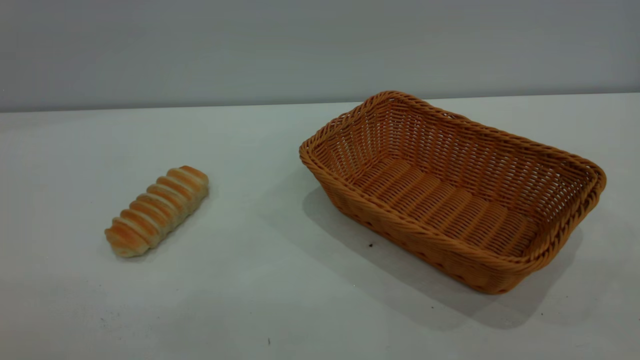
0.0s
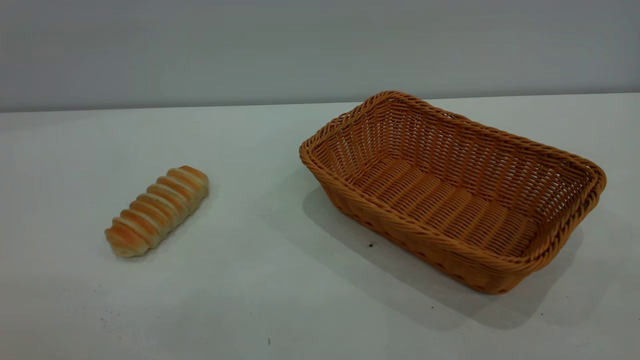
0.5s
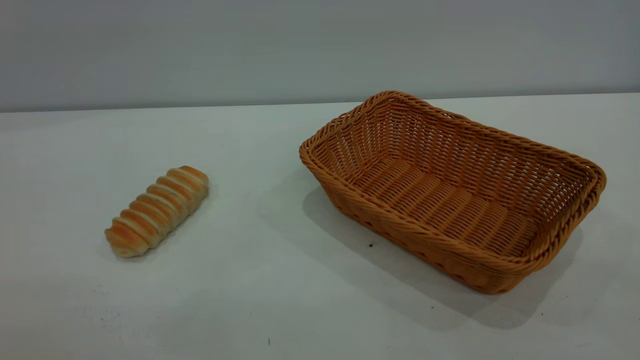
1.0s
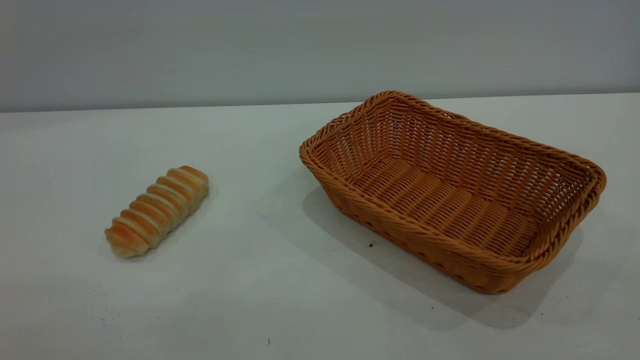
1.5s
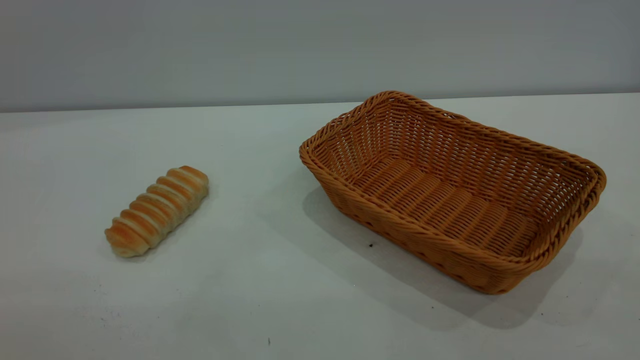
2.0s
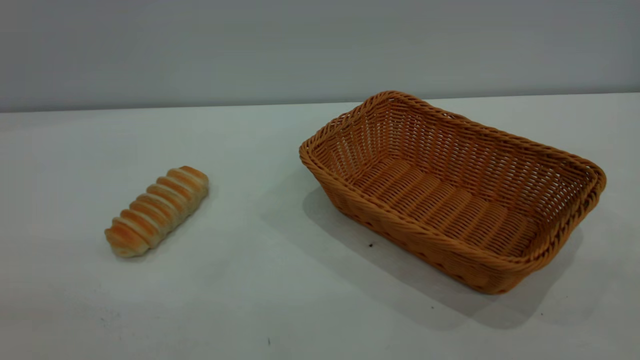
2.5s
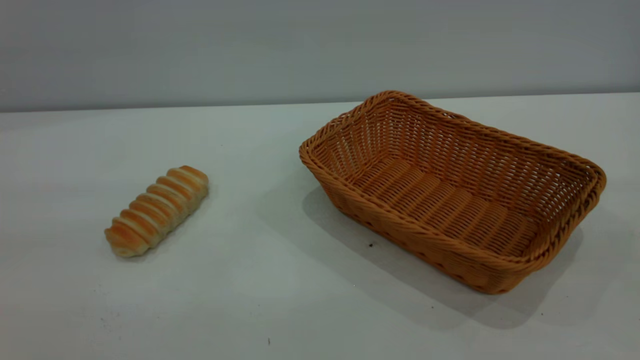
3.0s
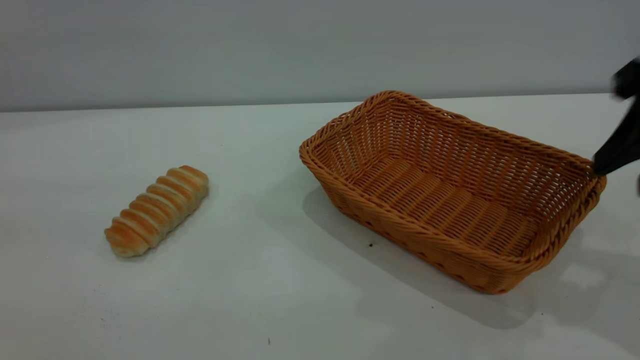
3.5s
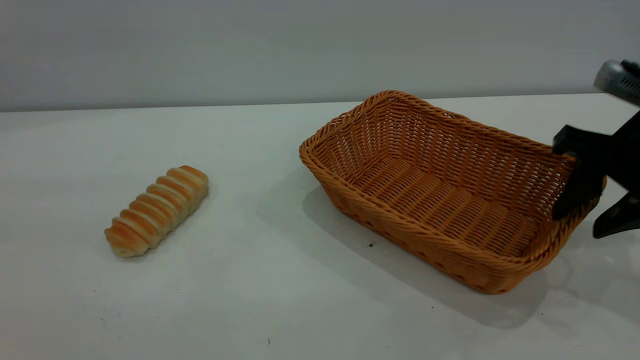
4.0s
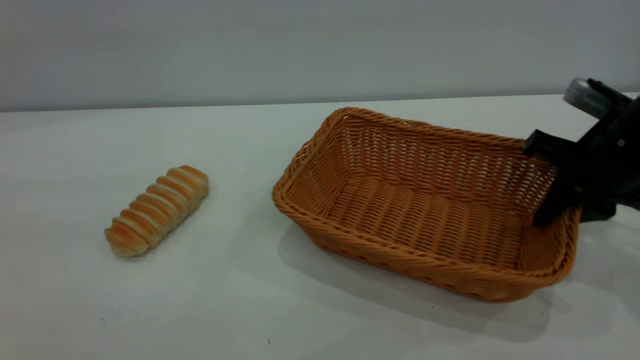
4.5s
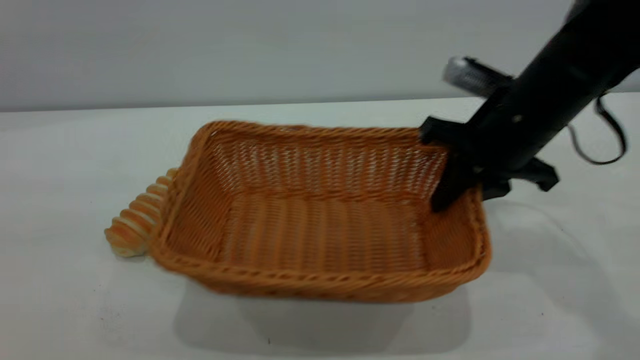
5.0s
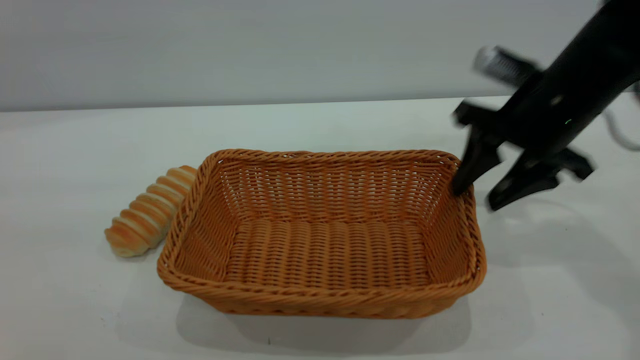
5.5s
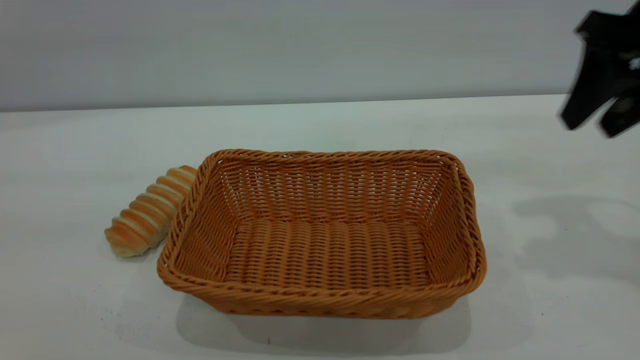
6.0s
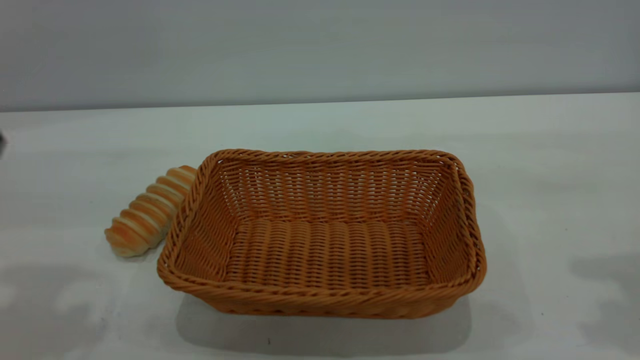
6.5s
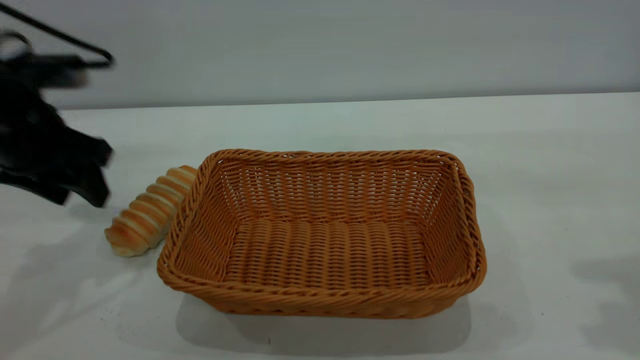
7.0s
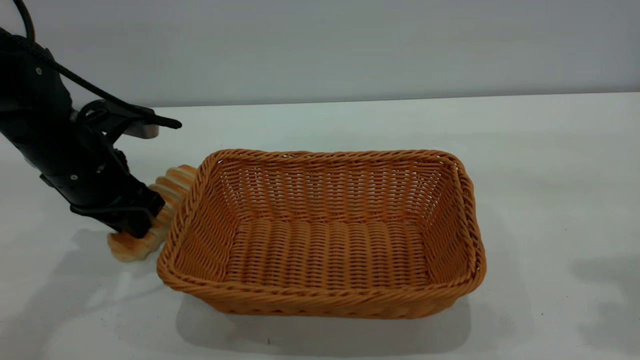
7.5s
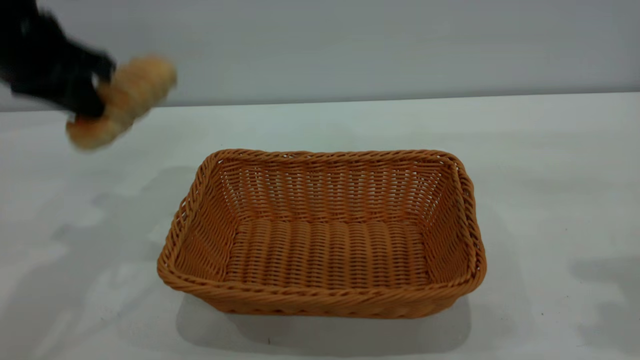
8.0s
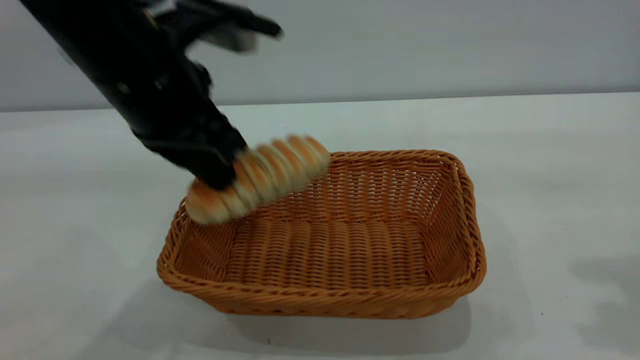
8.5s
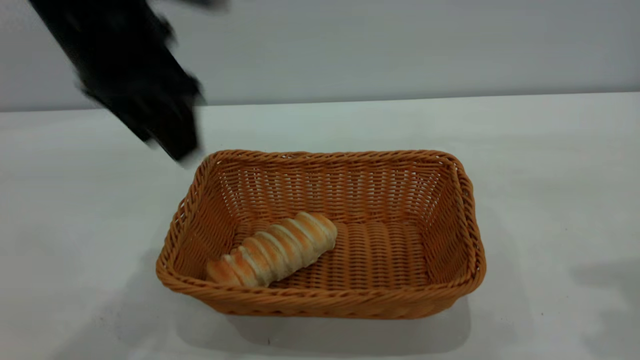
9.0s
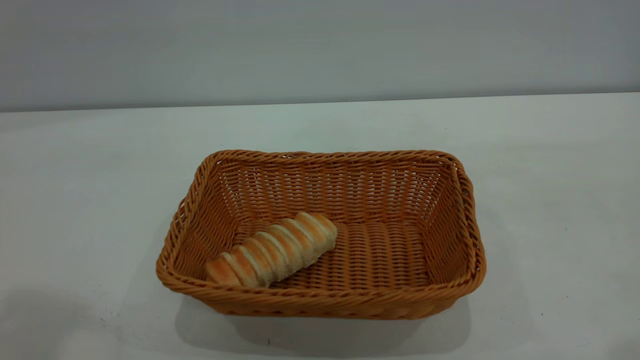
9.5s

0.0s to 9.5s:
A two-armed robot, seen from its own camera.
Task of the whole recording: One hand grasps the yellow basket and places it in the middle of the table, while the other hand picks up the long bread and puts it into the yellow basket.
Step, 0.0s to 5.5s: Move the basket to the center of view.
Step, 8.0s to 9.0s: place the bread into the basket.
2.0s to 4.0s: The right gripper moves forward and downward, approximately 35 cm, and opens its fingers.
4.0s to 5.5s: The right gripper heads to the left and forward, covering roughly 10 cm, and closes and opens again.
5.5s to 7.5s: The right gripper moves upward, backward and to the right, roughly 20 cm; the left gripper moves downward and forward, approximately 40 cm, and closes.
7.5s to 9.5s: The left gripper goes up and down, some 35 cm each way, reversing 2 times, and opens. The right gripper shifts some 10 cm backward and upward.
